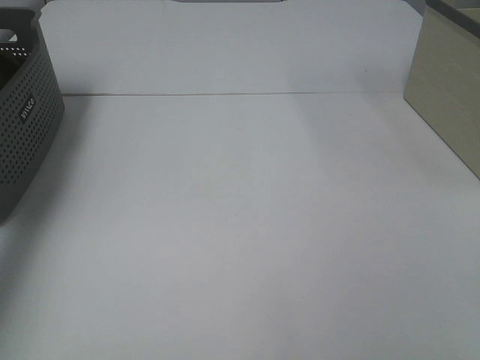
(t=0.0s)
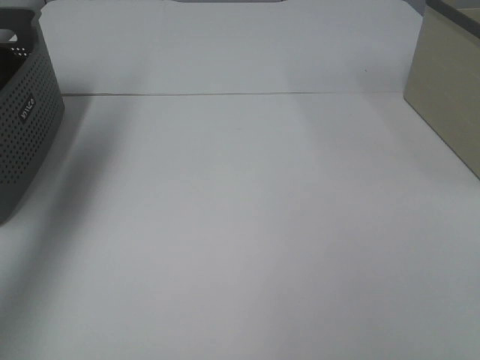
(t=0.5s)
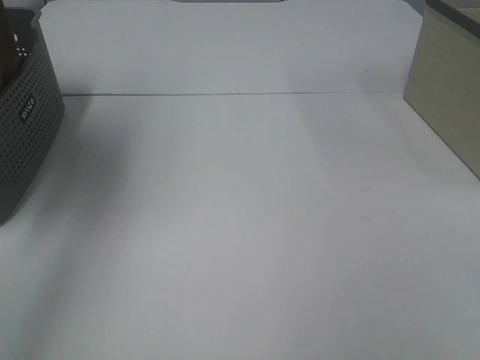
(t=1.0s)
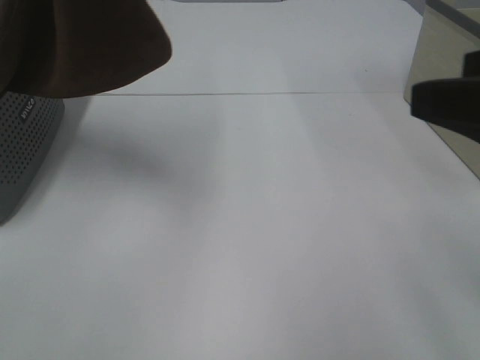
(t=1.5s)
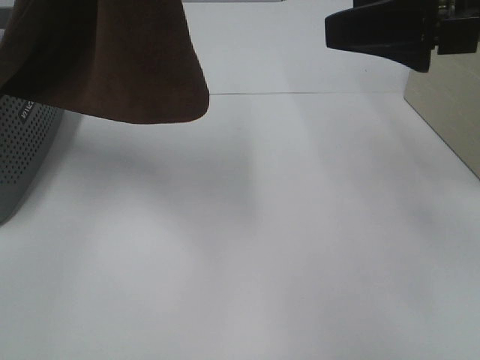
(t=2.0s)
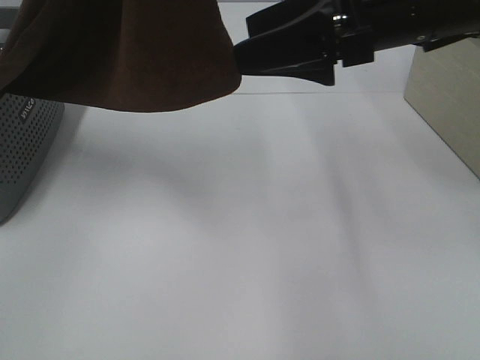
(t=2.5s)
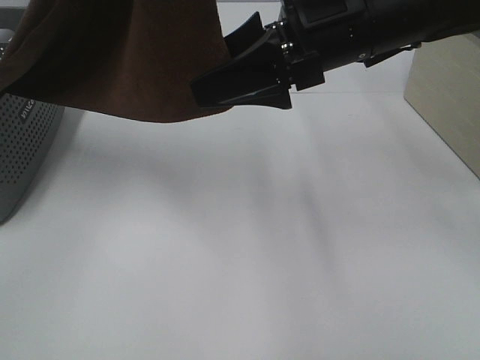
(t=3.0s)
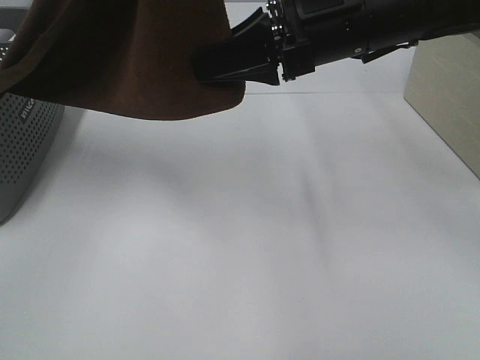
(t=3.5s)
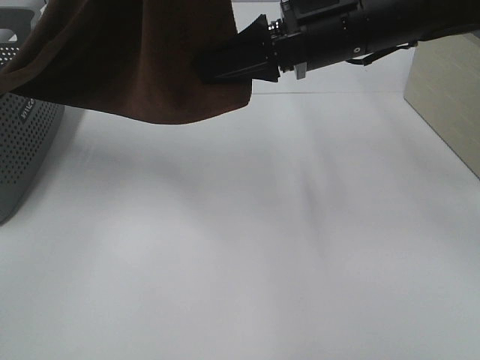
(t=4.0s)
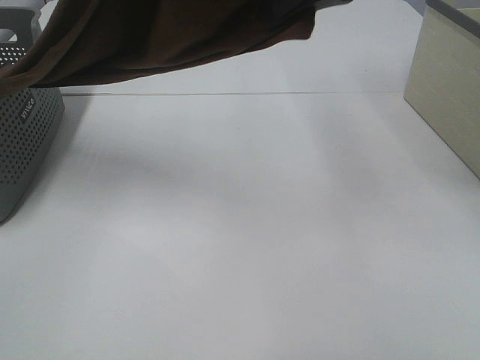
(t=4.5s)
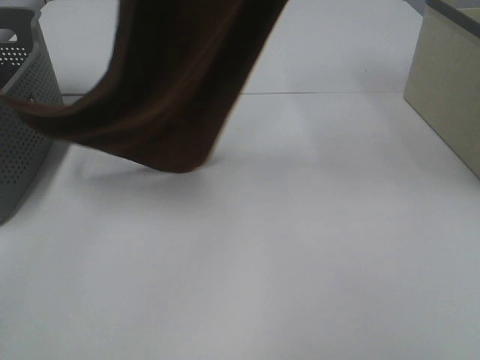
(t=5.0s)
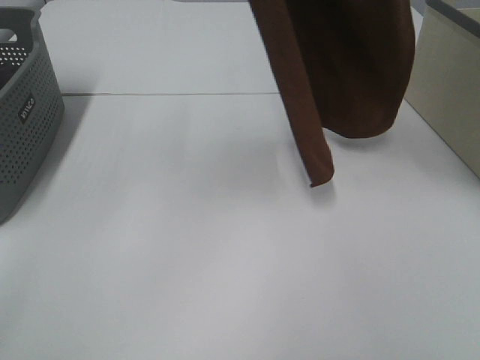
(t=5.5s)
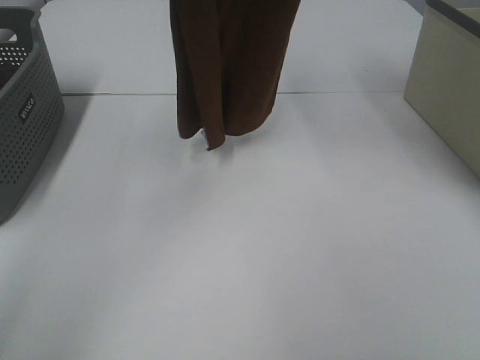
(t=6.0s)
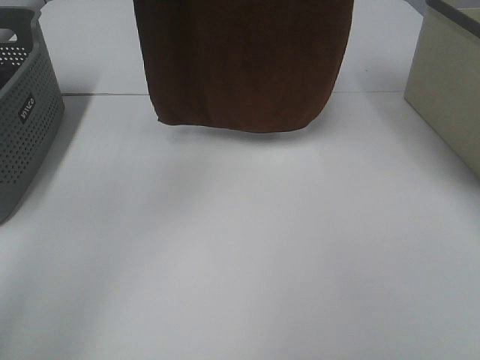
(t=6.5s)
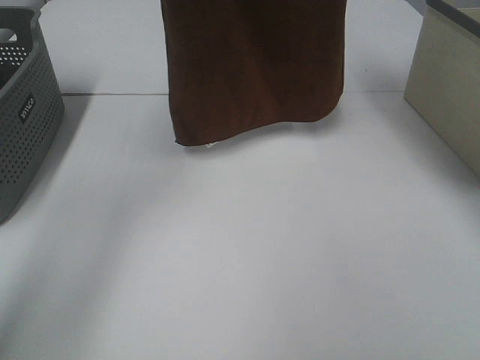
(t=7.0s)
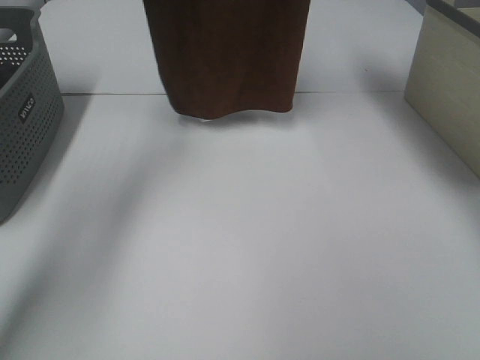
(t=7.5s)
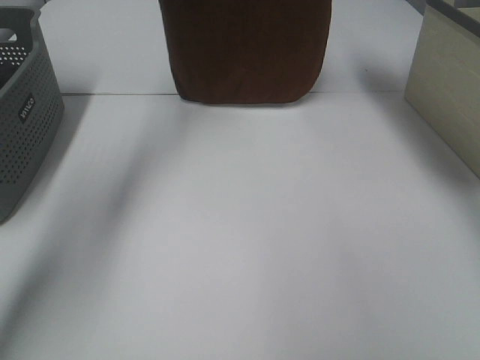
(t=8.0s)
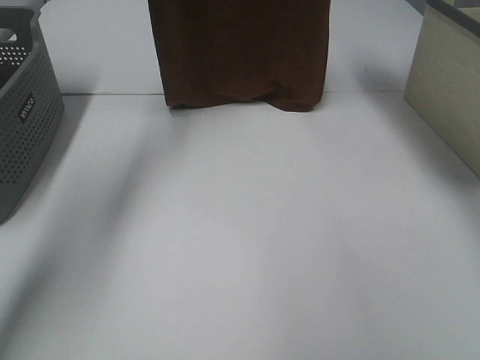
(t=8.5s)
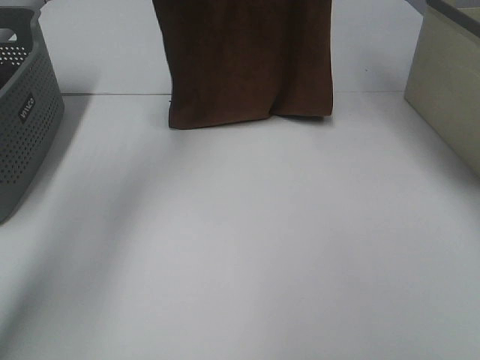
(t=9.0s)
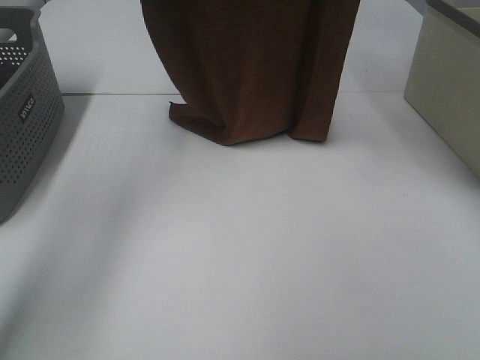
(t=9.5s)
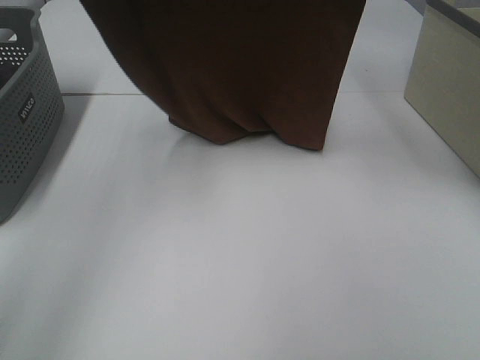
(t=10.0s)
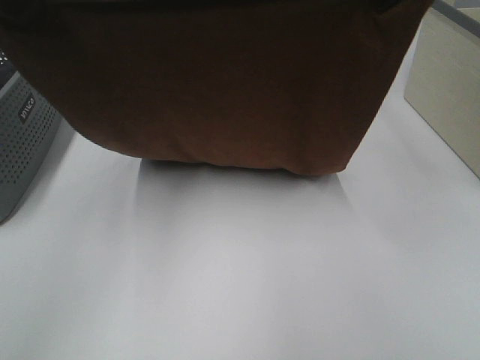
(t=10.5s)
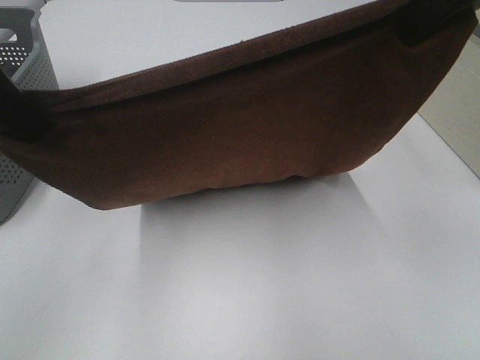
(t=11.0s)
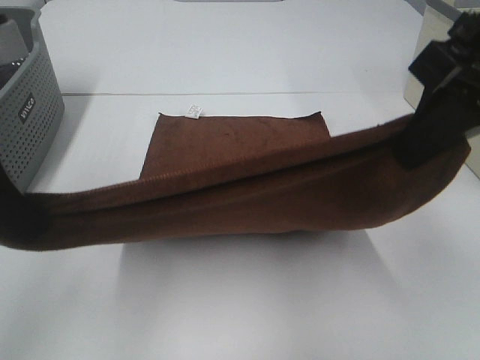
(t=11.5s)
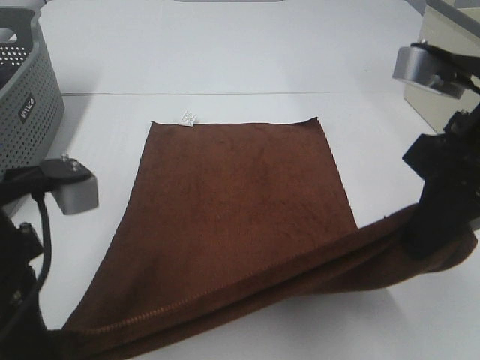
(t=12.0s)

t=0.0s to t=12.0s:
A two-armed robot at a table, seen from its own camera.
Task of the whole recording: Remove the towel and place it.
Step, t=1.0s to t=4.0s: Right hand: grab a corner of the brown towel and straighten it.
Step, t=4.5s to t=11.0s: Left hand: spread the brown towel flat on the table.
Step, t=4.5s to t=11.0s: Right hand: spread the brown towel flat on the table.
t=0.0s to t=2.0s: The left gripper shifts approximately 40 cm to the right, backward and upward. Meanwhile the right gripper travels forward by approximately 25 cm.
t=2.0s to t=4.0s: The right gripper goes roughly 15 cm to the left and forward, and closes its fingers.
t=4.0s to t=6.0s: The left gripper goes about 15 cm forward; the right gripper moves upward, about 25 cm.
t=6.0s to t=8.0s: The grippers both shift forward and downward by some 15 cm.
t=8.0s to t=10.0s: The grippers both shift backward by roughly 15 cm.
t=10.0s to t=12.0s: The grippers both shift downward and backward by roughly 25 cm.

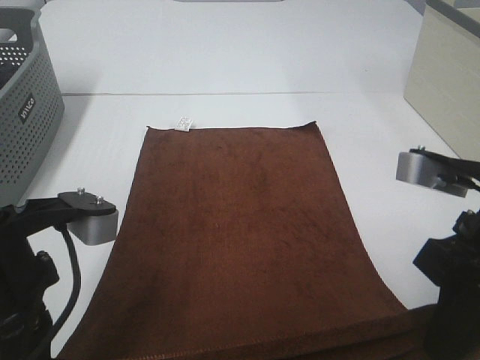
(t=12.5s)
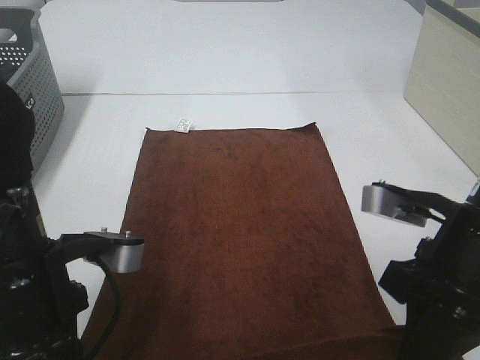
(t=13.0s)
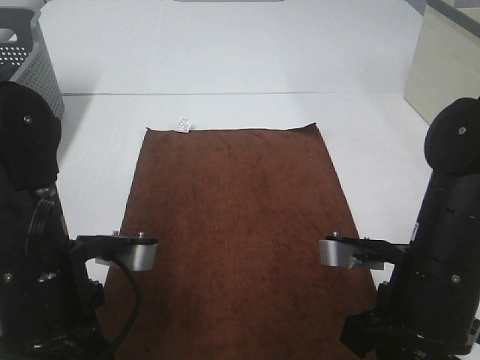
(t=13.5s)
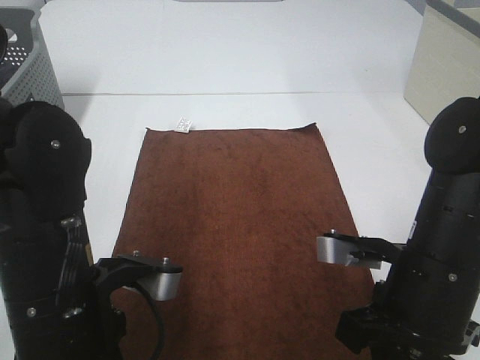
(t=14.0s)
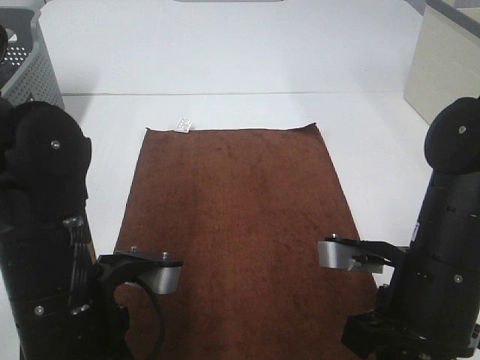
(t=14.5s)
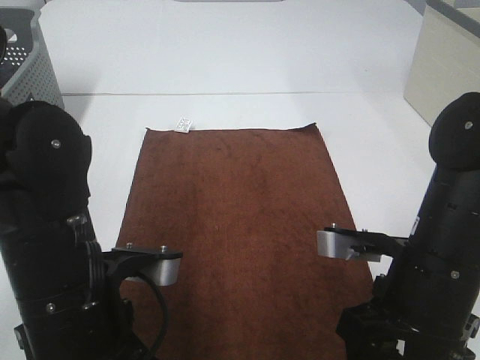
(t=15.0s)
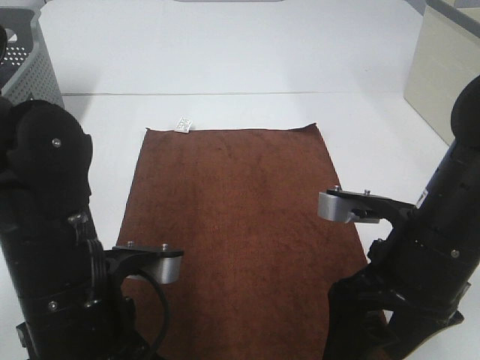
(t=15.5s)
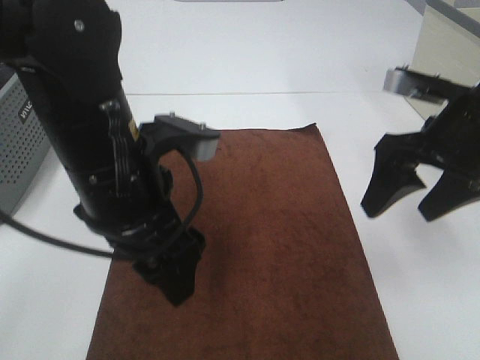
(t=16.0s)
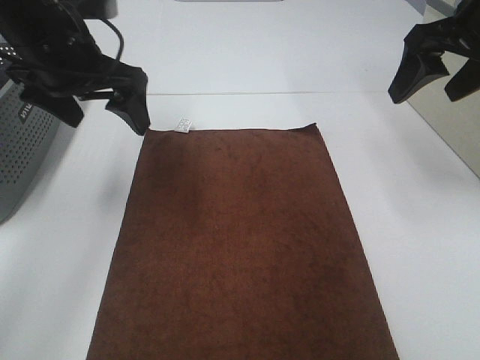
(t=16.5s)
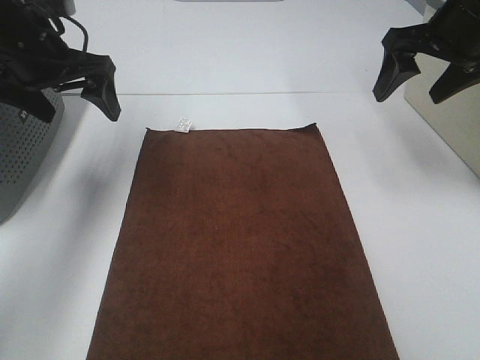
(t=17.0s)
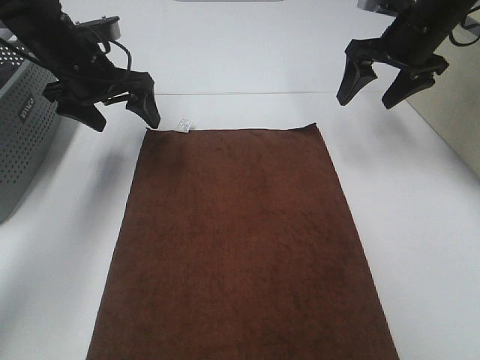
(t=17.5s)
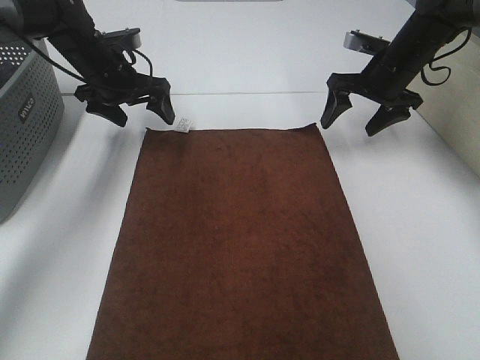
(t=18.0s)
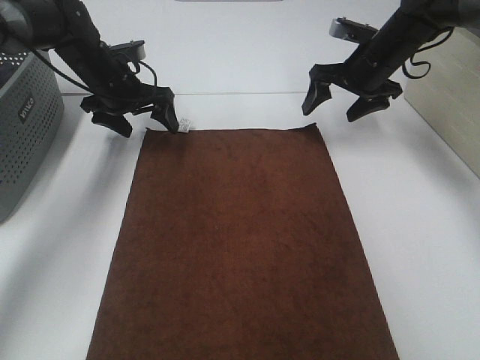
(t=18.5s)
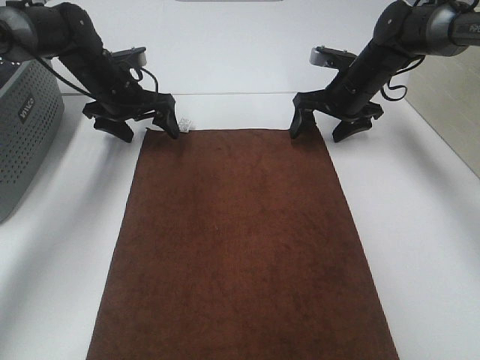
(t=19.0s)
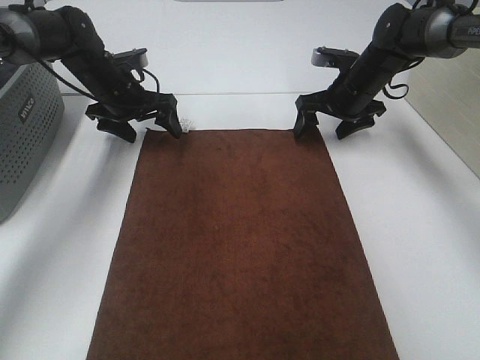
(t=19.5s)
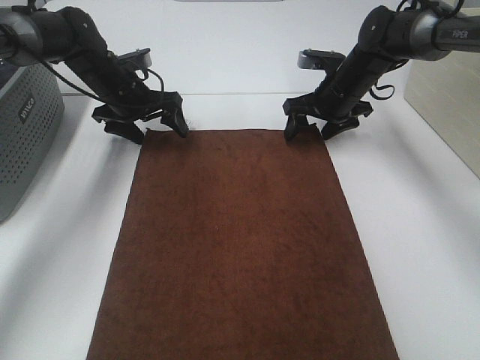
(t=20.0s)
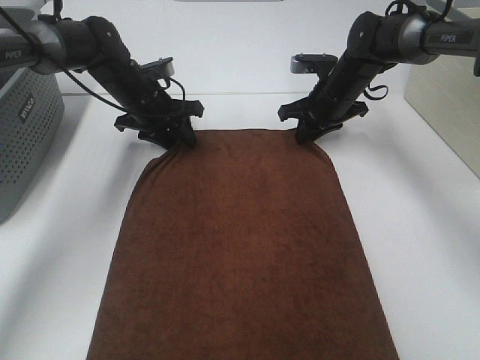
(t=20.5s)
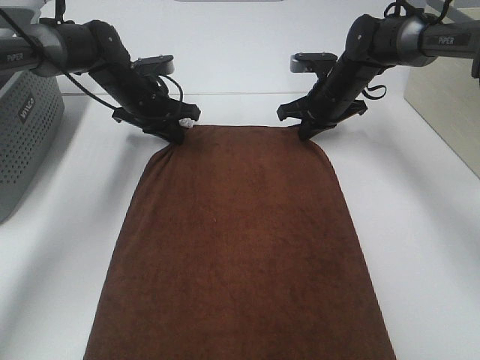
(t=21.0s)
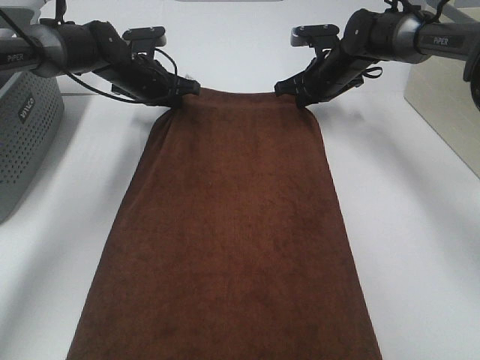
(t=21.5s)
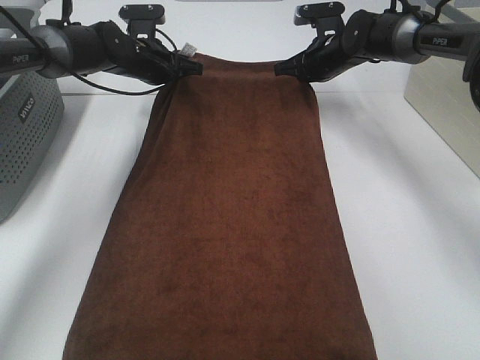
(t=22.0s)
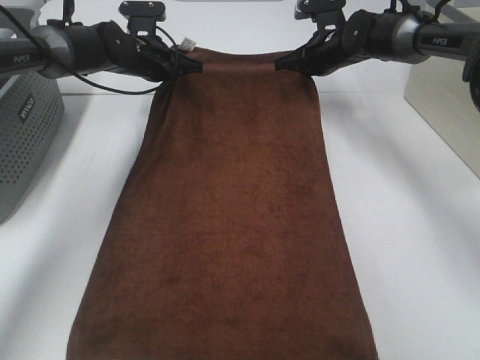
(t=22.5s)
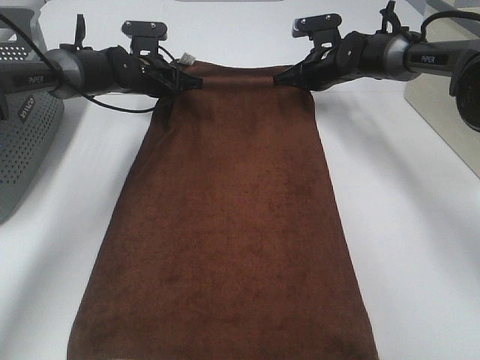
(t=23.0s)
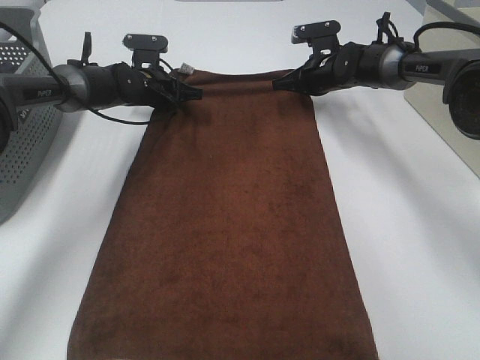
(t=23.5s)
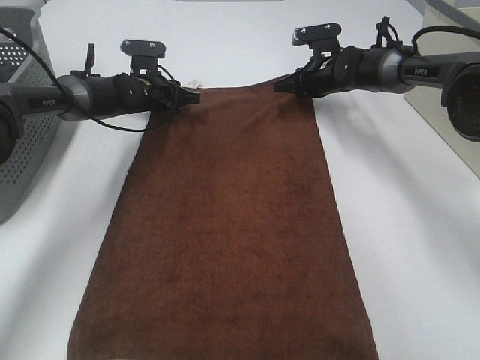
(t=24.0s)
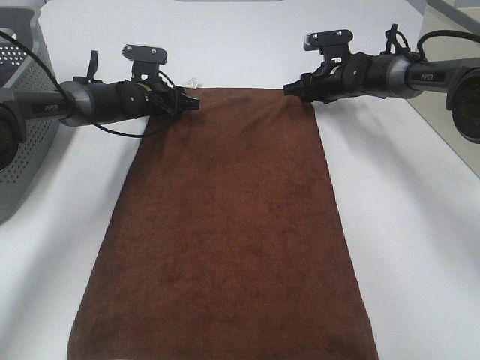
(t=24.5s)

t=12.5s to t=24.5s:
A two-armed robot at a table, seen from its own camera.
Task of the whole recording: Remove the towel and place it.
Step, t=12.5s to t=18.0s: Left hand:adjust the brown towel.
Step, t=12.5s to t=18.0s: Right hand:adjust the brown towel.
t=12.5s to t=14.5s: The grippers both shift downward by about 5 cm.
t=14.5s to t=16.5s: The left gripper heads forward and upward, covering approximately 20 cm, and opens its fingers. Meanwhile the right gripper goes about 25 cm forward, upward and to the right, and opens up.
t=16.5s to t=18.5s: Both grippers move forward and downward, approximately 20 cm.
t=18.5s to t=20.5s: The right gripper shifts roughly 5 cm downward, and closes, while the left gripper closes up.
t=20.5s to t=22.5s: The two grippers go approximately 5 cm forward.
t=22.5s to t=24.5s: The two grippers go some 5 cm downward. The right gripper opens up, while the left gripper opens its fingers.

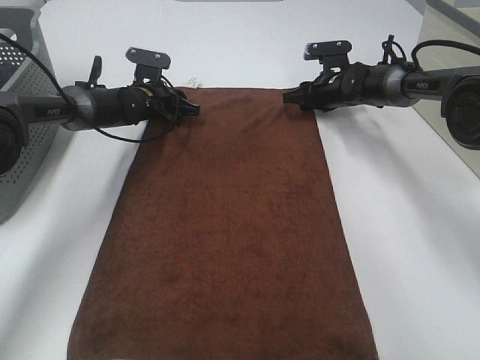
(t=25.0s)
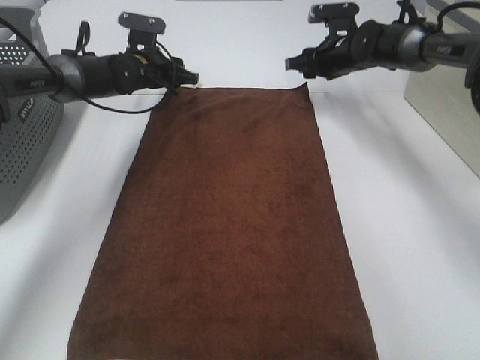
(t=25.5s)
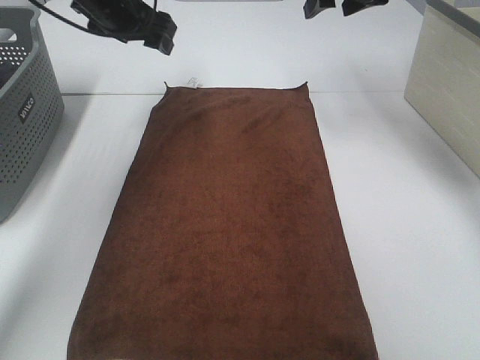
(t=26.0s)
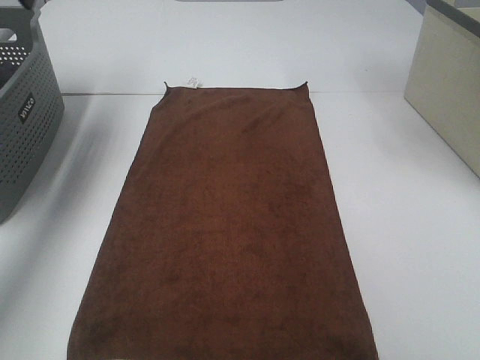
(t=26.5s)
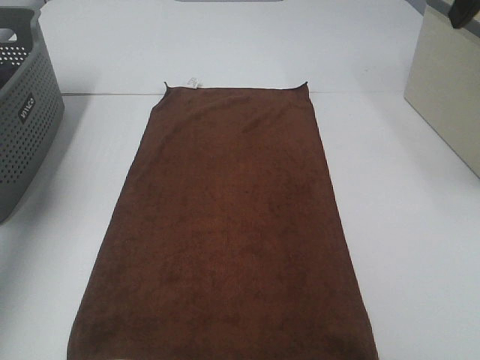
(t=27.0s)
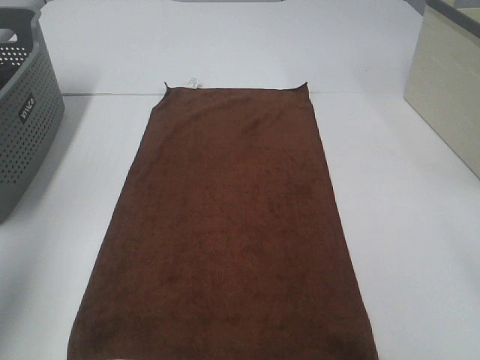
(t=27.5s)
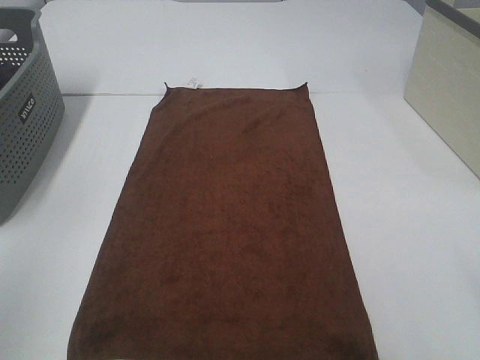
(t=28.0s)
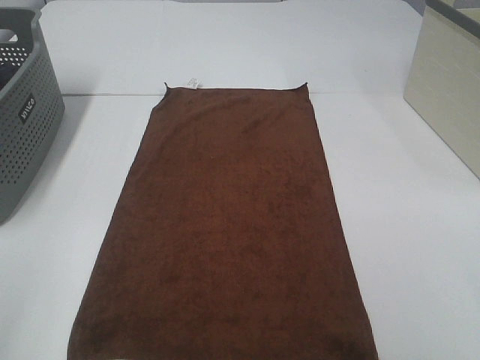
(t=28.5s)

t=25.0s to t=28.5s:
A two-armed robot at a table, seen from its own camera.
Task of the whole recording: Remove the towel and place it.
t=25.0s to t=27.0s: The right gripper moves upward and backward, about 40 cm. Meanwhile the left gripper heads upward, backward and to the left, covering some 50 cm.
t=27.0s to t=28.5s: The grippers both shift backward by approximately 25 cm.
